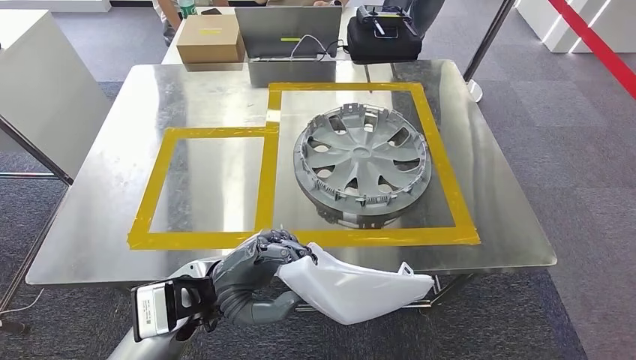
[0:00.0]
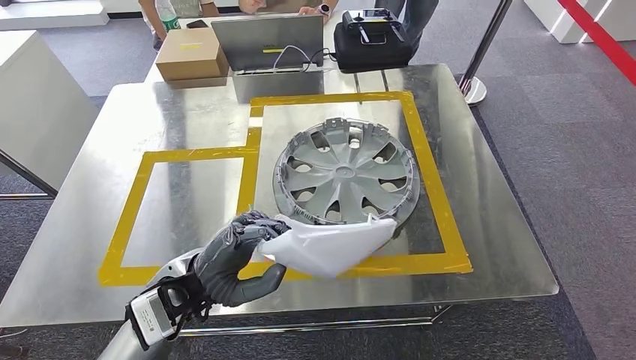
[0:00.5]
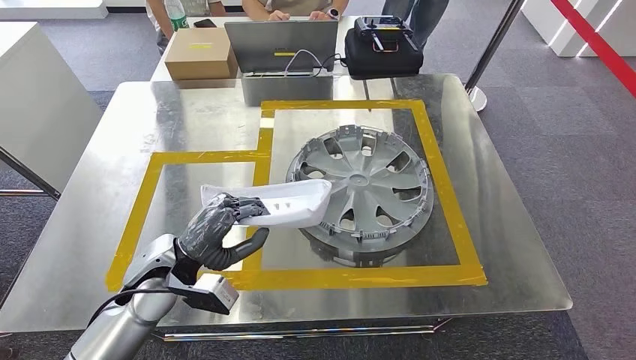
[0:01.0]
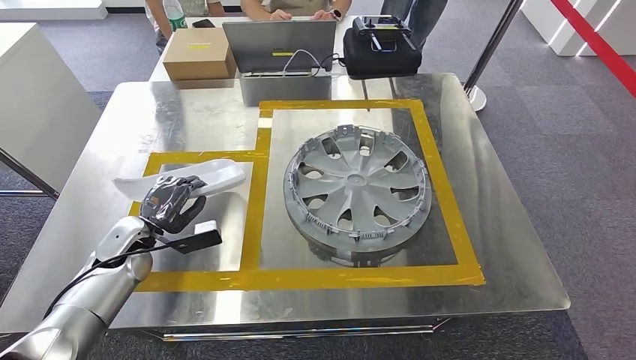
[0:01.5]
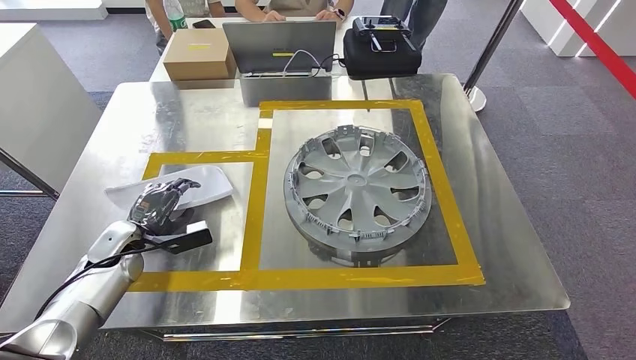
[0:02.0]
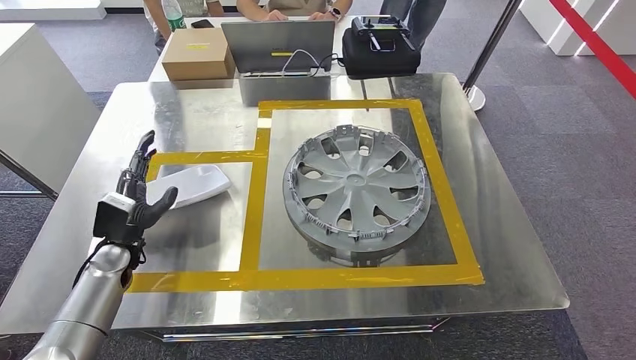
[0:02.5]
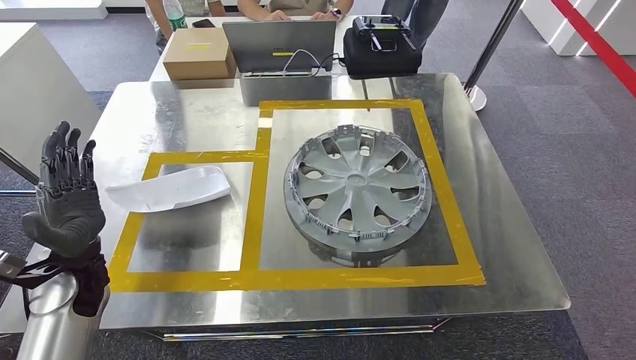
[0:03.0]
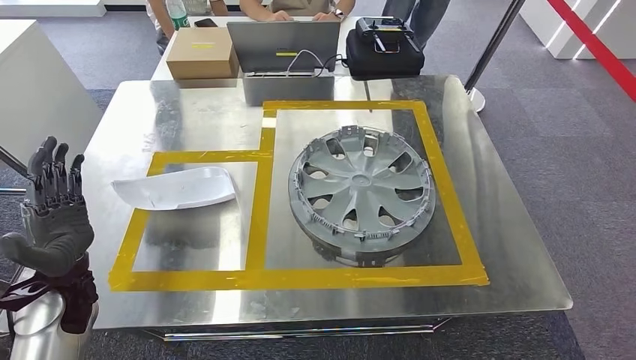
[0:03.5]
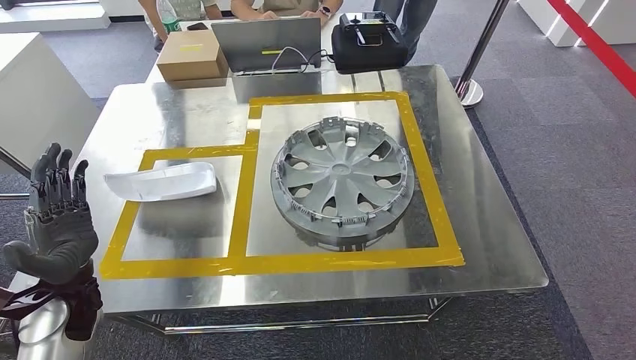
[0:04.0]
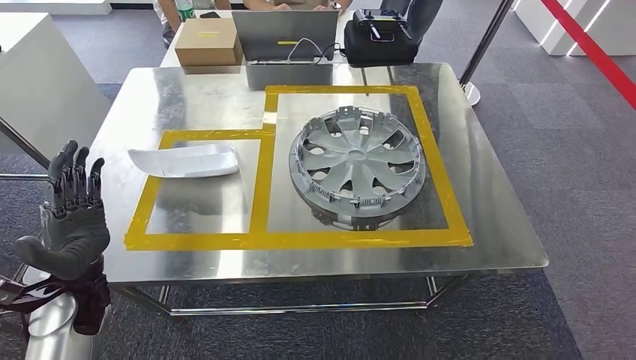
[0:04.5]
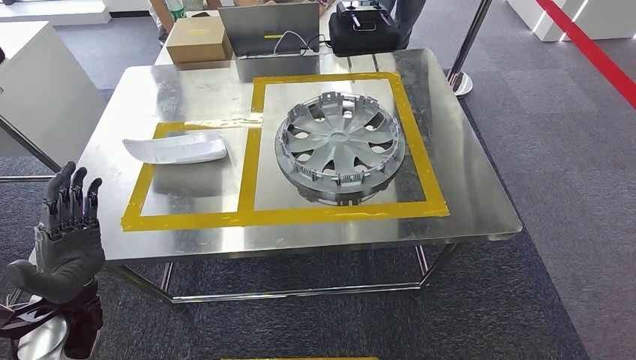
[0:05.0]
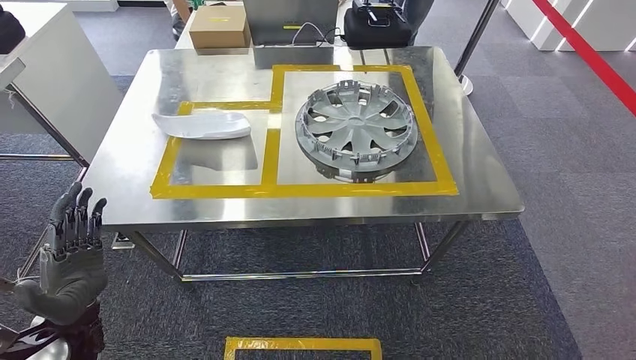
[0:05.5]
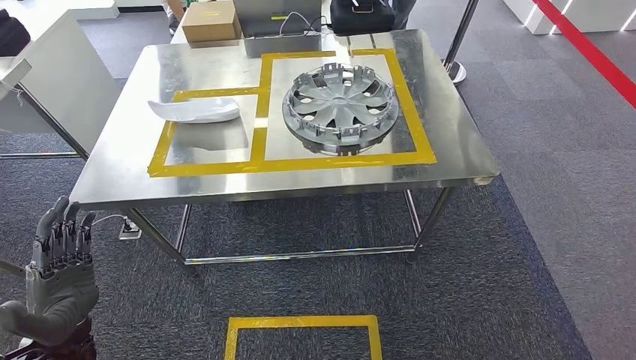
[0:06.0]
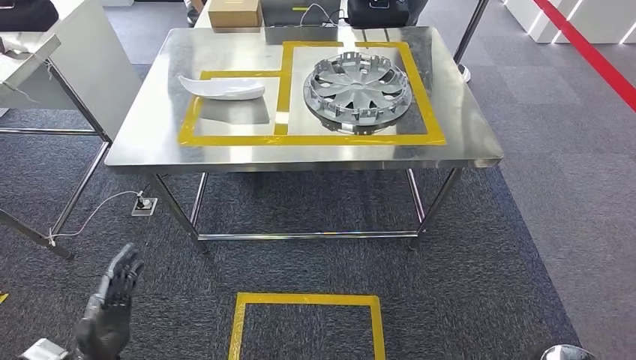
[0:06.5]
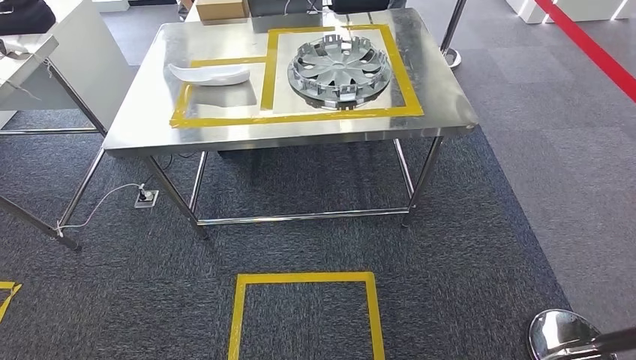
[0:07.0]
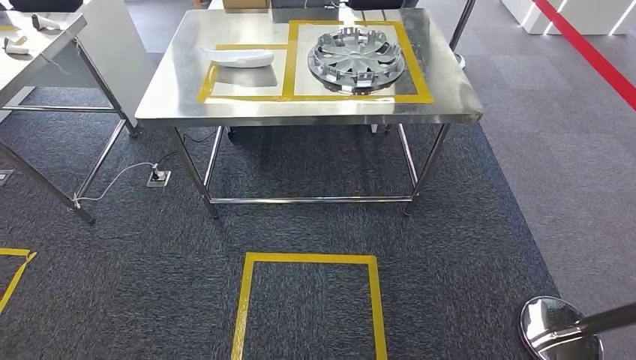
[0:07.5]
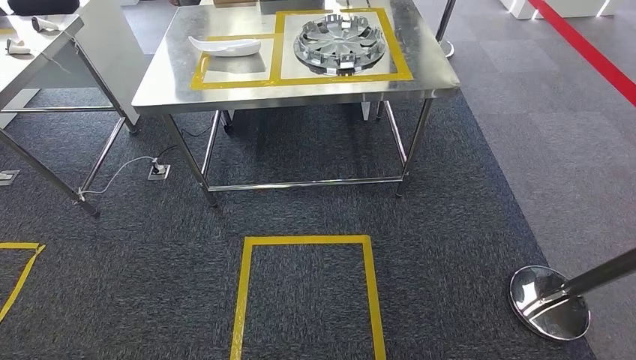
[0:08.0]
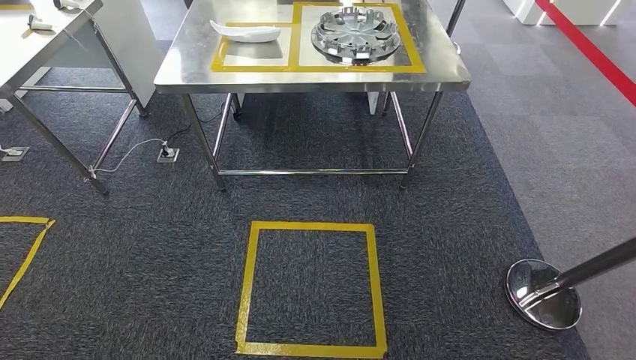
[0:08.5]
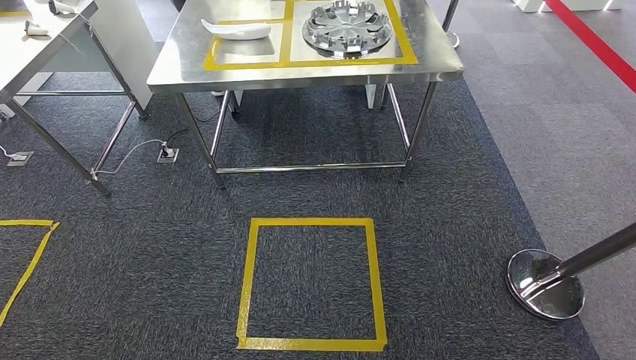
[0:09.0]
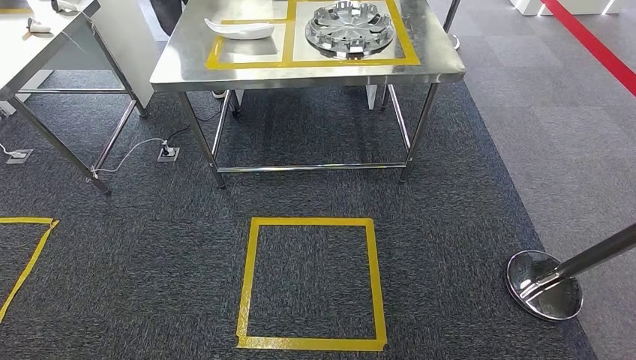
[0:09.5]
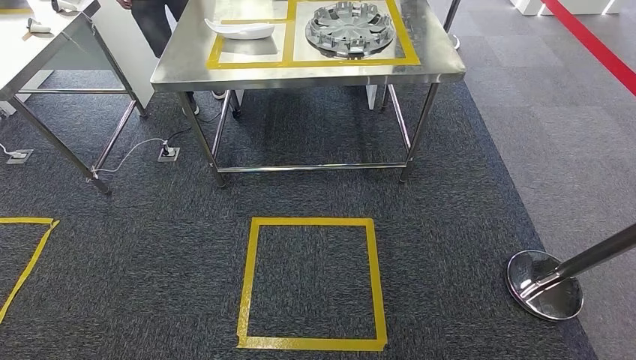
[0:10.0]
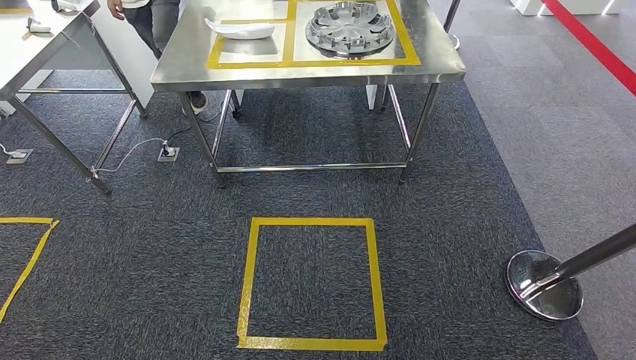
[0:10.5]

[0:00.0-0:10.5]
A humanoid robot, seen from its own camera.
Step, 0:00.0 to 0:04.5: Insert the small component into the corresponding slot on the workbench.
Step, 0:05.0 to 0:10.5: Return to the initial position at the workbench.
0:08.5 to 0:10.5: The right hand moves roughly 5 cm.
